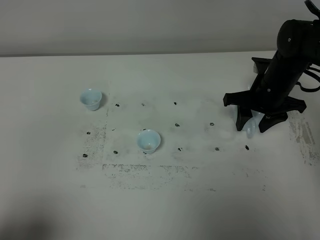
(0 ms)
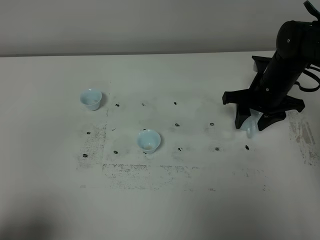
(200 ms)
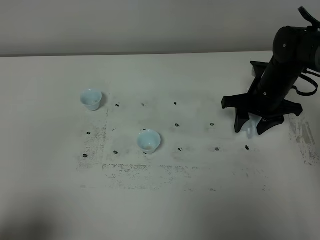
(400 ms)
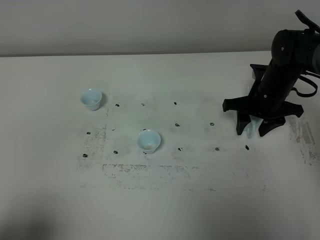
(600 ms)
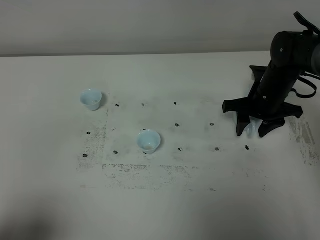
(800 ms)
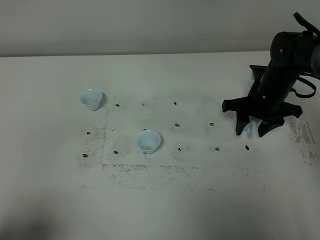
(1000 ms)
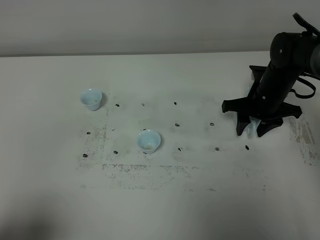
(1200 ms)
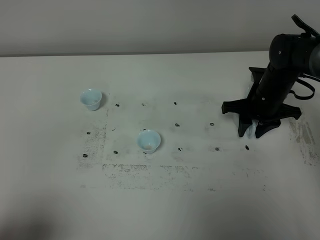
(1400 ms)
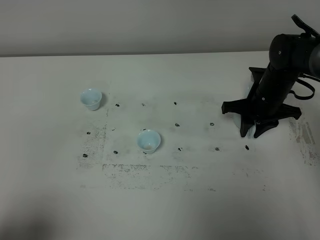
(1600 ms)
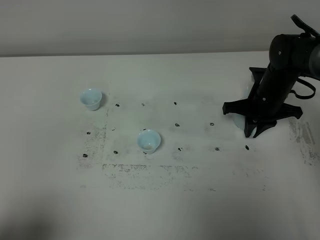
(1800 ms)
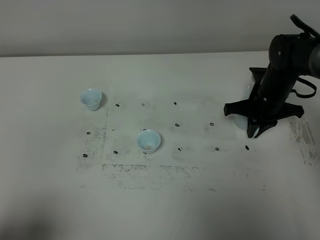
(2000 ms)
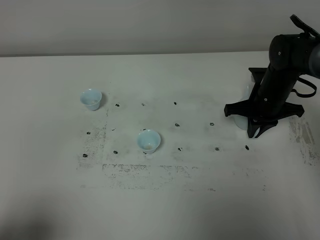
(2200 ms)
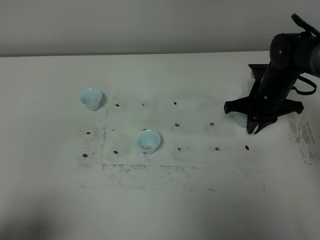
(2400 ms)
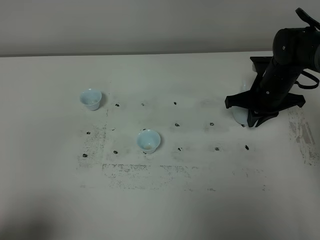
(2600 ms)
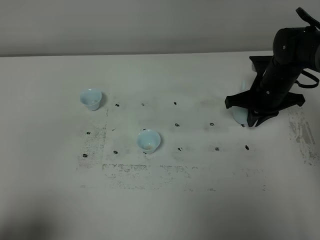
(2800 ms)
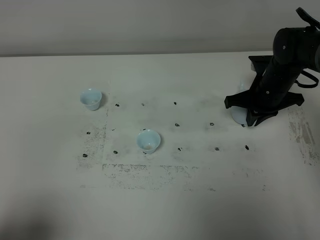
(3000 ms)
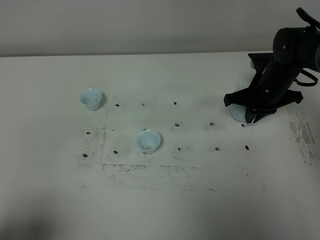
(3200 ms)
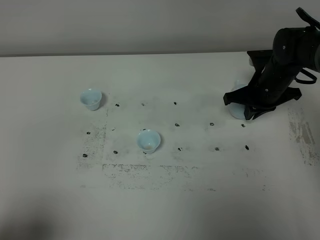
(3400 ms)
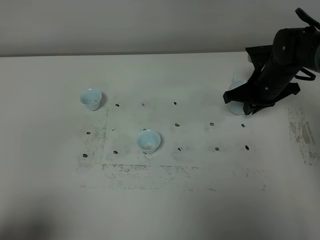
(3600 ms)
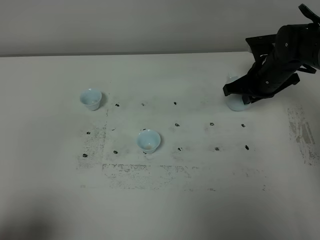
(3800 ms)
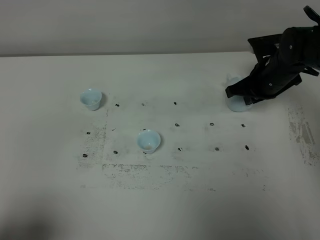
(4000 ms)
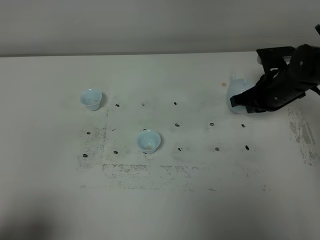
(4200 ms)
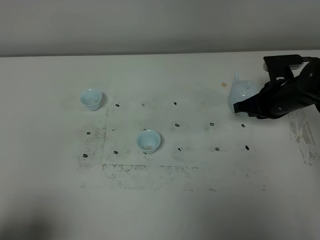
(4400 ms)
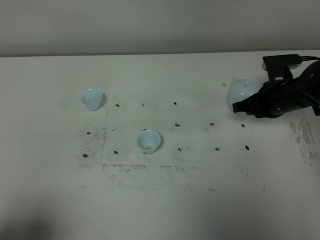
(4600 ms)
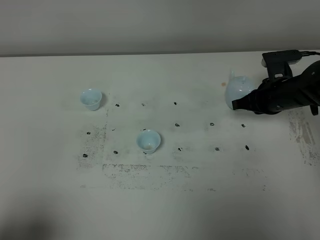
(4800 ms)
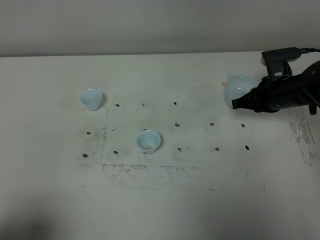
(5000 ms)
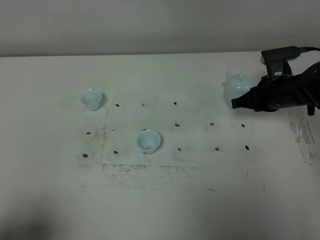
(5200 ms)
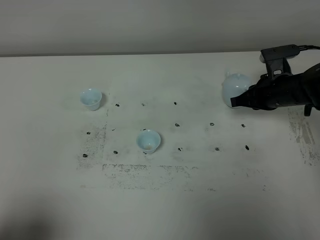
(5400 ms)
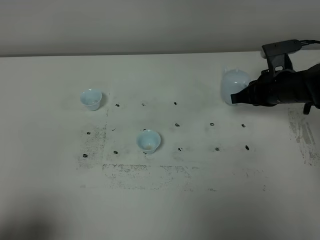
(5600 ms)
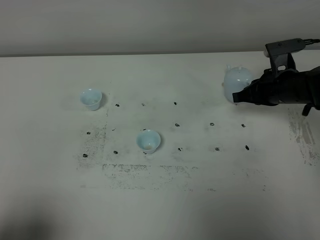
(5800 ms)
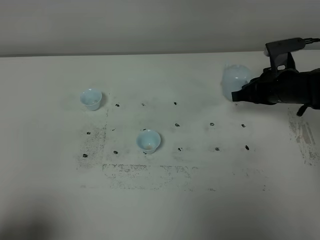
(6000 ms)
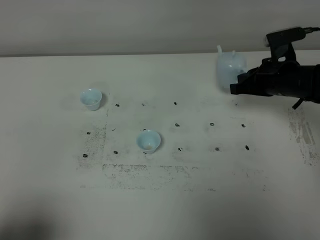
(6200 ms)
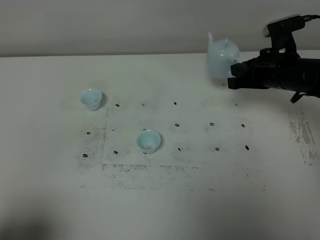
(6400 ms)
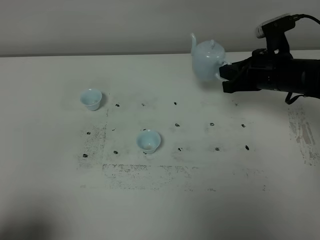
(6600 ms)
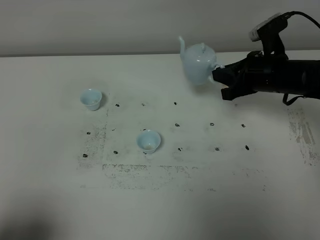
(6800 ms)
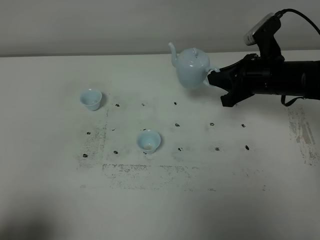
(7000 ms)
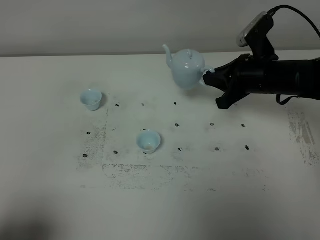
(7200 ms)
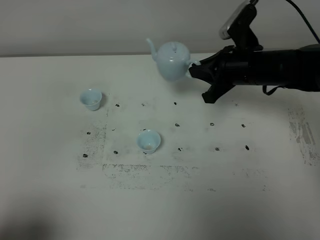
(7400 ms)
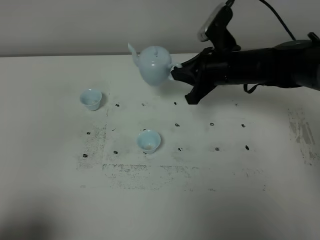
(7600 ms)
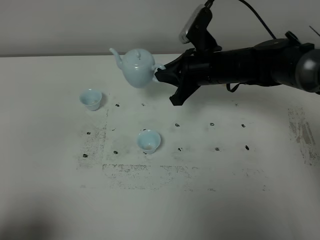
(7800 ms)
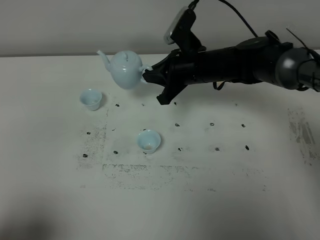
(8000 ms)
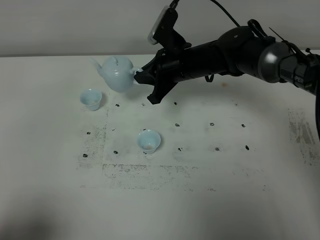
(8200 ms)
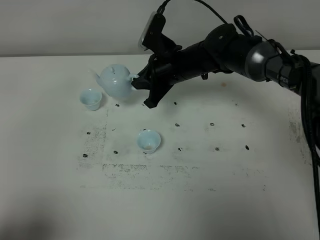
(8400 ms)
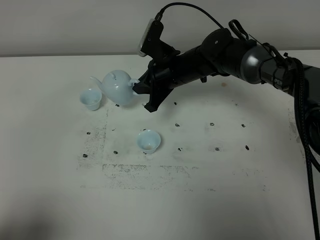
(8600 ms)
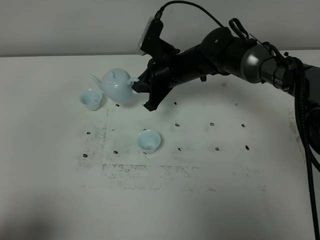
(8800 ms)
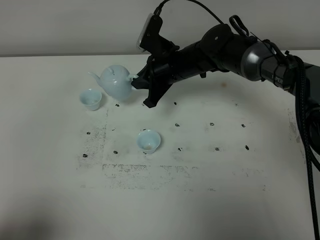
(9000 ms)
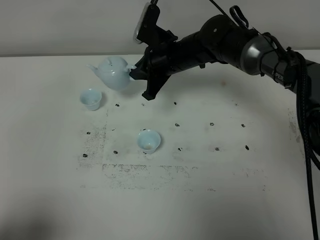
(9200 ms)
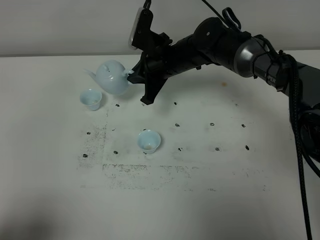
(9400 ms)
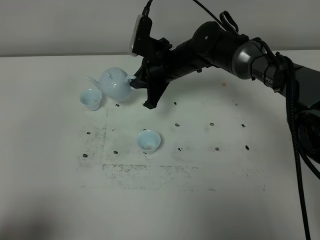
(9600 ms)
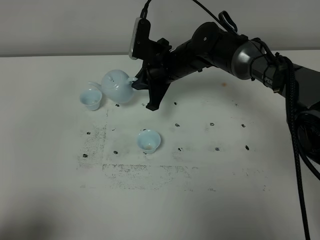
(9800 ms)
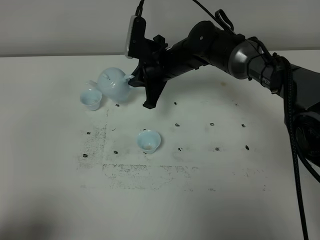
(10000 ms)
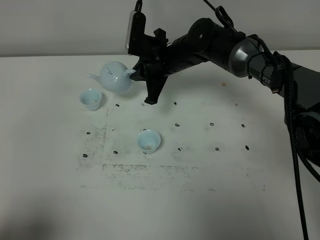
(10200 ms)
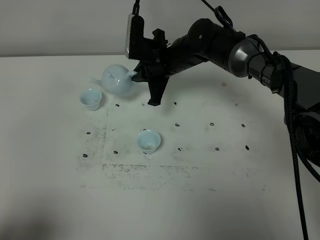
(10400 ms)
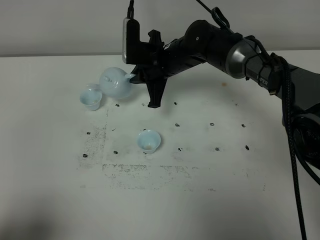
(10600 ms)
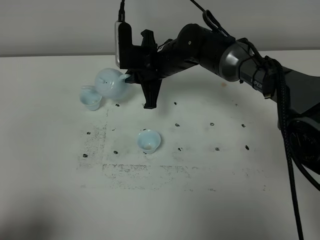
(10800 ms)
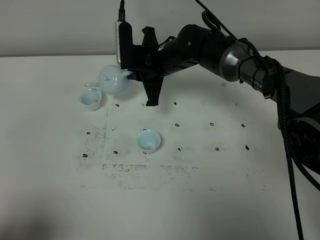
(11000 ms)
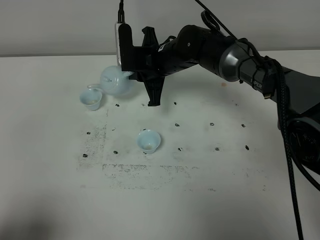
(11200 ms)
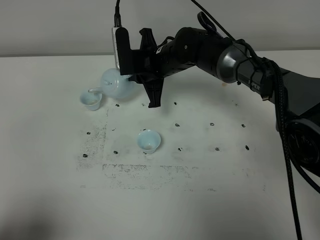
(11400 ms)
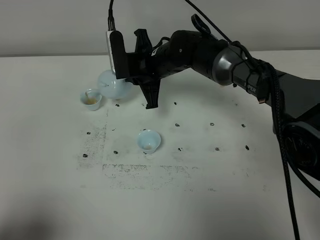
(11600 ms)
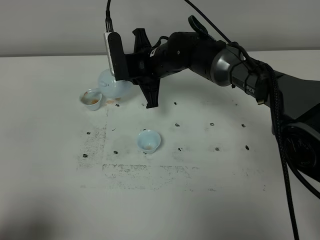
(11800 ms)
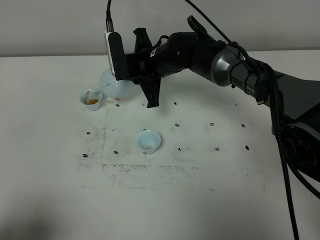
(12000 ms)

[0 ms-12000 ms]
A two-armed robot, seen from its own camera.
Task of the whole recording: grasp the blue porcelain teapot and pour the tea into the two blue porcelain teacups one by one, put the blue porcelain teapot back in its original place.
Step, 0 ms to 5800 ms: Pick up the teapot with the right gripper.
0 ms to 1600 ms: The right gripper closes its fingers.
1600 ms to 3000 ms: The right gripper closes.
4400 ms to 6000 ms: There are only small adjustments of the grippers.
6000 ms to 7600 ms: The right gripper goes about 10 cm to the left and upward.
7600 ms to 9000 ms: The right gripper goes approximately 10 cm to the left.

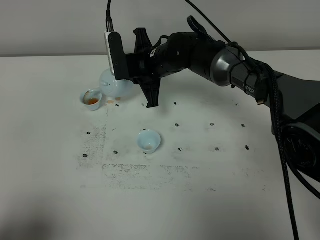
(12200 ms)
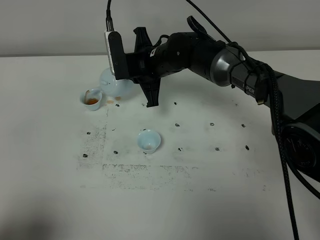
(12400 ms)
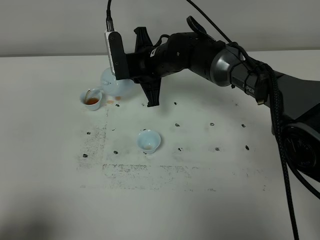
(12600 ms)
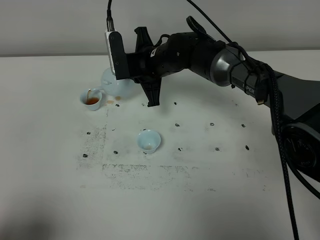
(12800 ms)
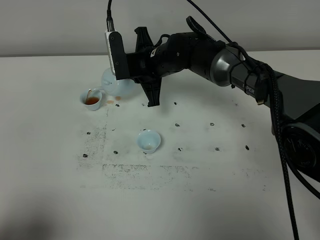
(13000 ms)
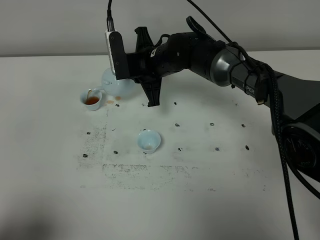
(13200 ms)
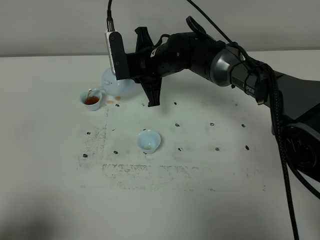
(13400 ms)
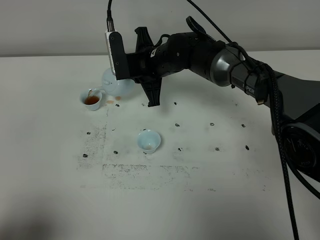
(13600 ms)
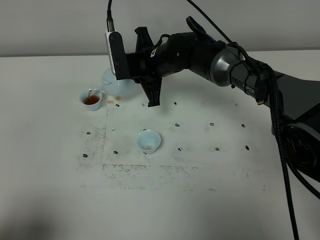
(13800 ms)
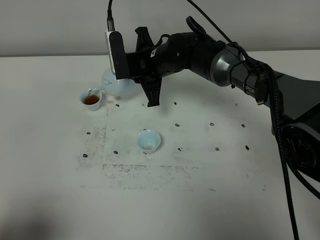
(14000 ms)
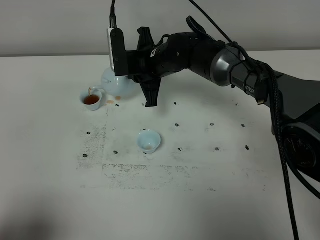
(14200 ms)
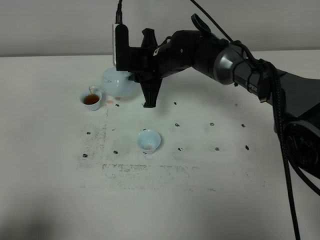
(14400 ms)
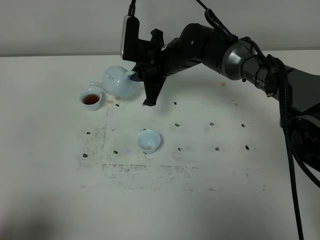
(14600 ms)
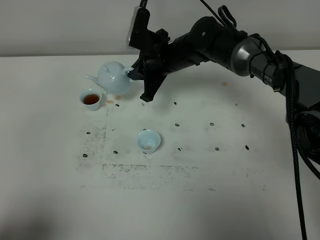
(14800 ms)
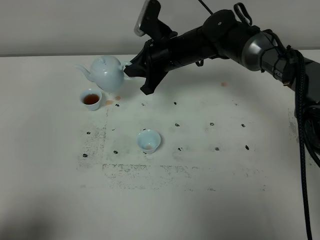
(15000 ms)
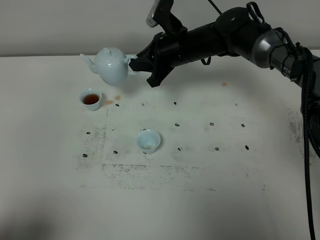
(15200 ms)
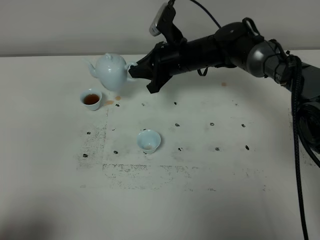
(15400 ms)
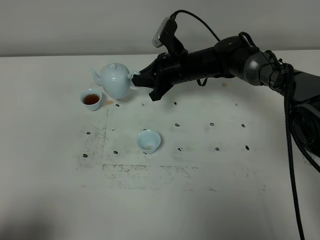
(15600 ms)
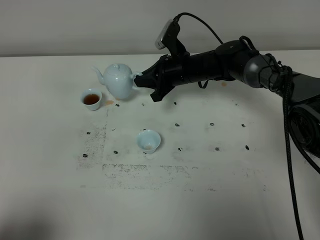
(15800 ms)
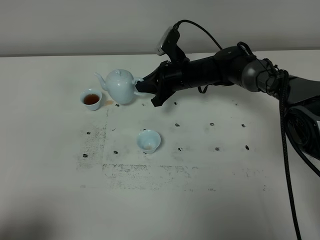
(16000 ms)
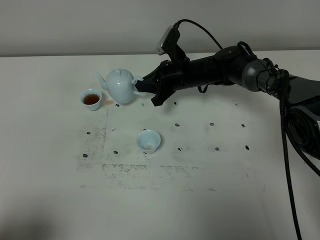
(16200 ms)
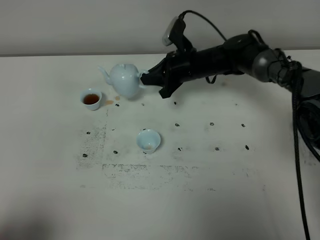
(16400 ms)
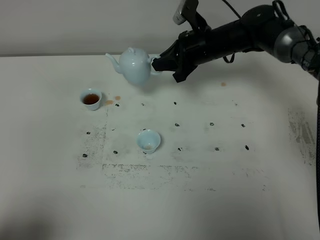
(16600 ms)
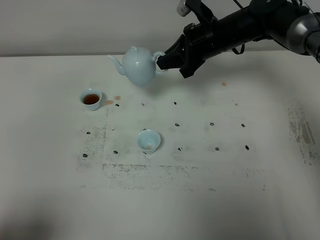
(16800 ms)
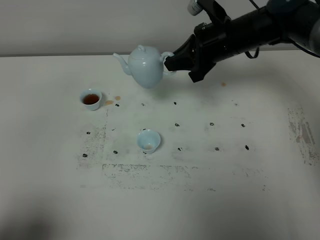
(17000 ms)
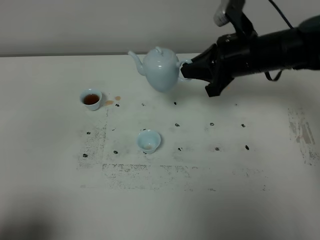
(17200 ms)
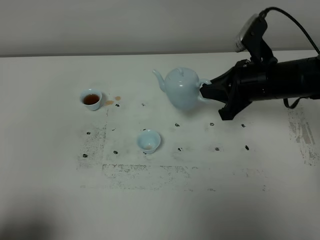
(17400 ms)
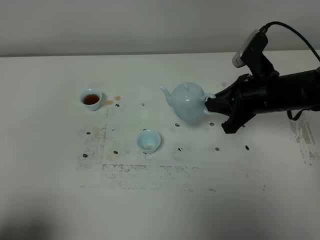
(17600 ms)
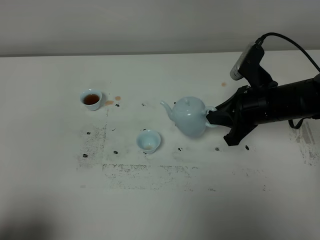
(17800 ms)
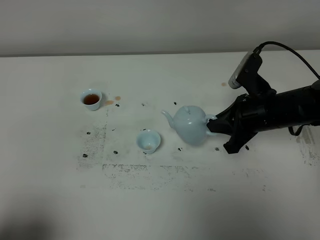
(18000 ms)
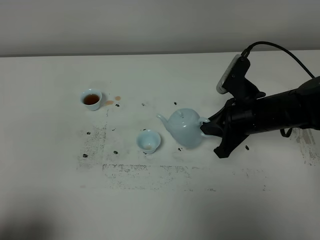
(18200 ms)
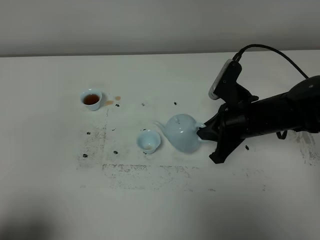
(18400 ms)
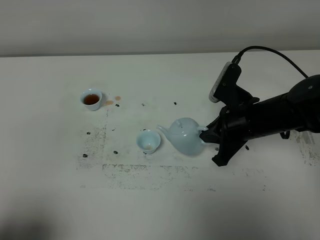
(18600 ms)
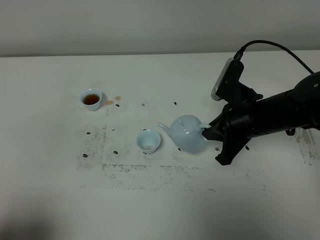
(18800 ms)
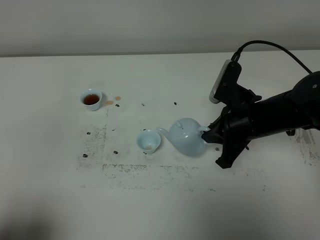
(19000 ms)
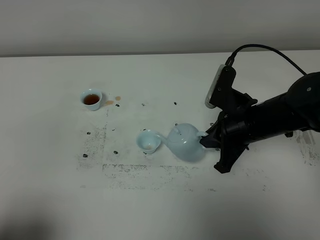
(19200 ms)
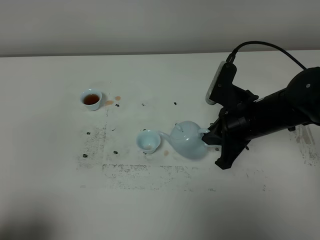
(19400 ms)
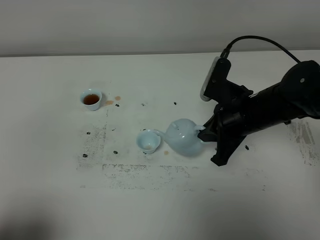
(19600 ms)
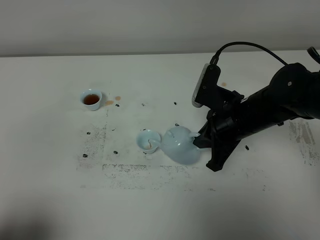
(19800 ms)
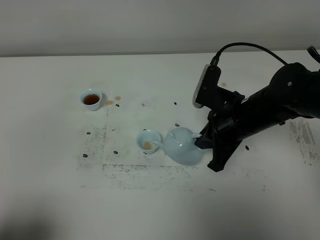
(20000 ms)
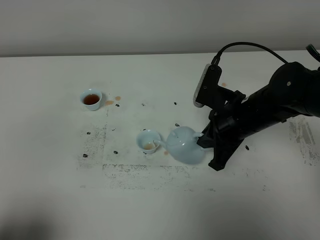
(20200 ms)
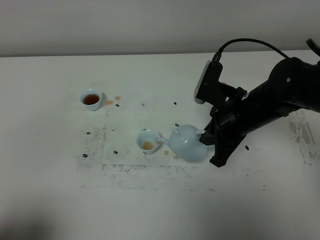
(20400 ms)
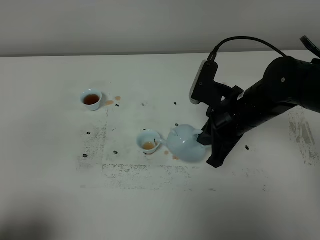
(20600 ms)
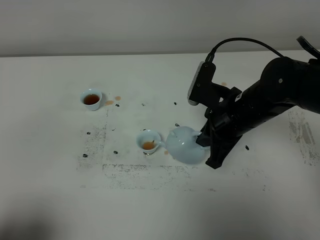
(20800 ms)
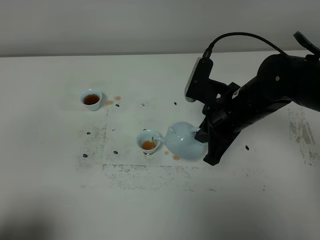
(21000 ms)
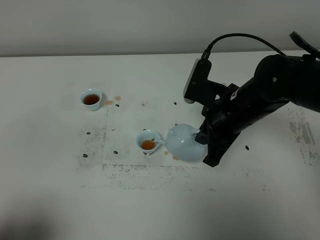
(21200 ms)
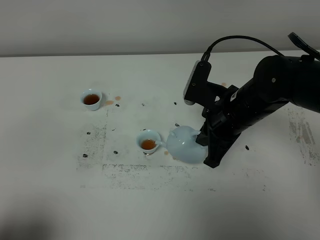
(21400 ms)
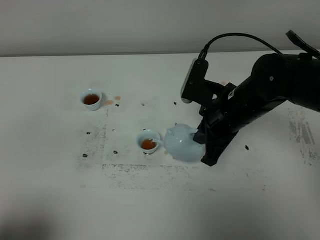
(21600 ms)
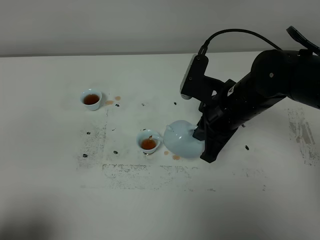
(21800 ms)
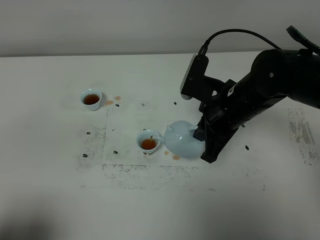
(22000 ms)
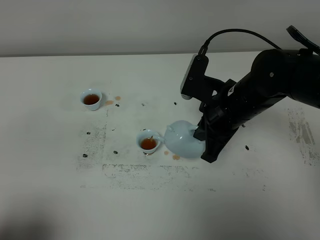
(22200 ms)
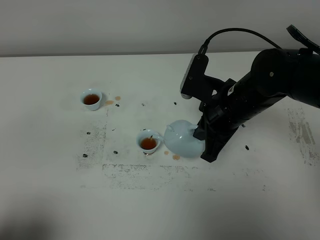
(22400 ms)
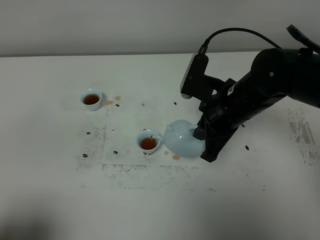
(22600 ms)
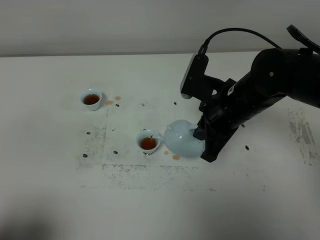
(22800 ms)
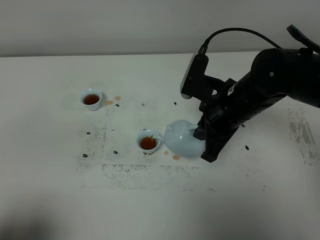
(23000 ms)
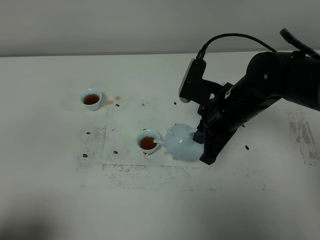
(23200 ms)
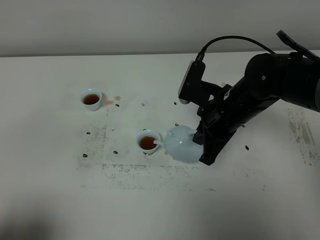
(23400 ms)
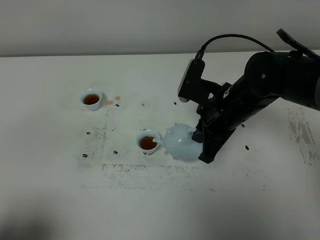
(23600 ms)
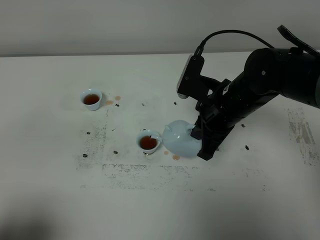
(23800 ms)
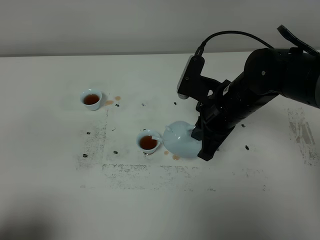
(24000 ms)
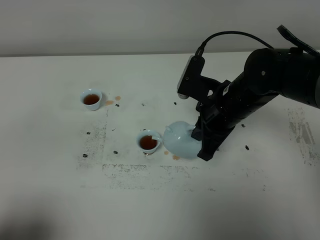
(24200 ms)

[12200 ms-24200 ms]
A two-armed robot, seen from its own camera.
Task of the whole recording: grasp the blue porcelain teapot and pour the tea into the two blue porcelain teacups one by one, put the blue porcelain teapot back in its original place.
12200 ms to 13800 ms: The two grippers keep their place.
13800 ms to 15200 ms: The right gripper travels to the right by about 5 cm.
15200 ms to 16600 ms: The right gripper reaches some 10 cm downward, then returns.
16600 ms to 18200 ms: The right gripper shifts about 15 cm backward.
18200 ms to 19800 ms: The grippers move only a little.
19800 ms to 21200 ms: The grippers stay close to where they were, moving slightly.
21200 ms to 22600 ms: The two grippers keep their place.
22600 ms to 24200 ms: The grippers stay close to where they were, moving slightly.
